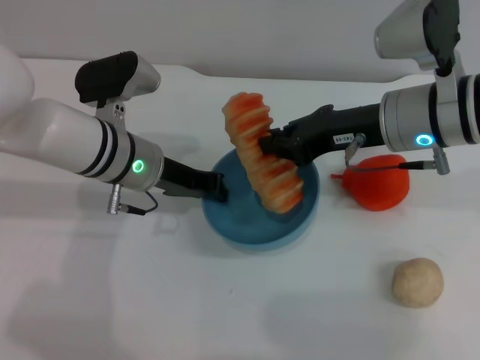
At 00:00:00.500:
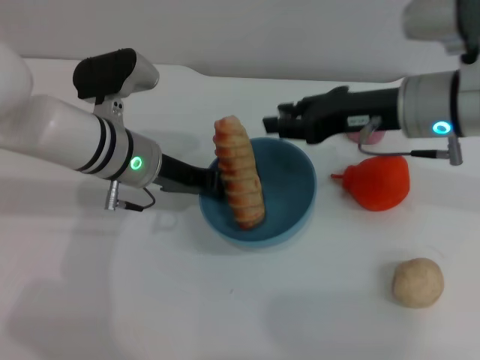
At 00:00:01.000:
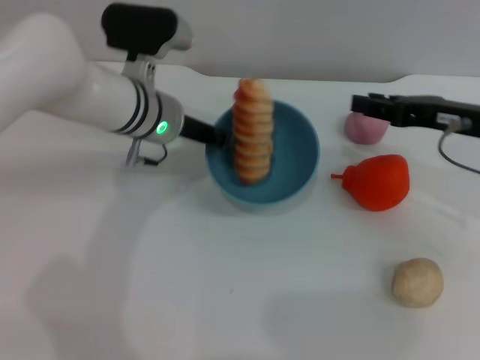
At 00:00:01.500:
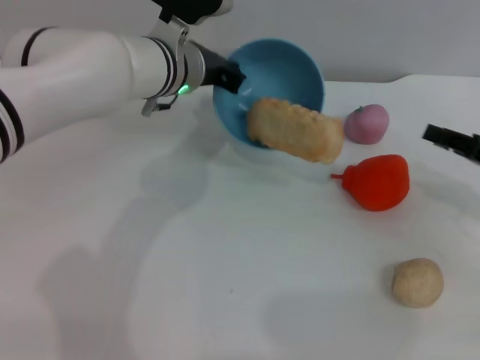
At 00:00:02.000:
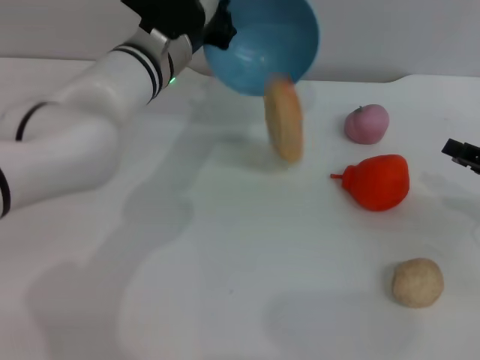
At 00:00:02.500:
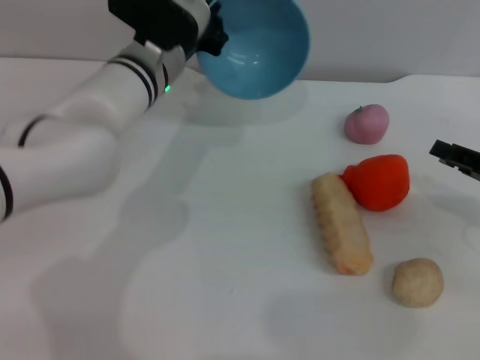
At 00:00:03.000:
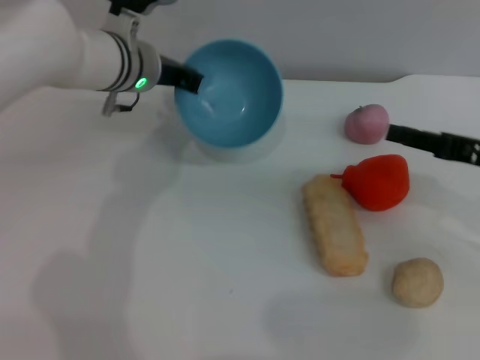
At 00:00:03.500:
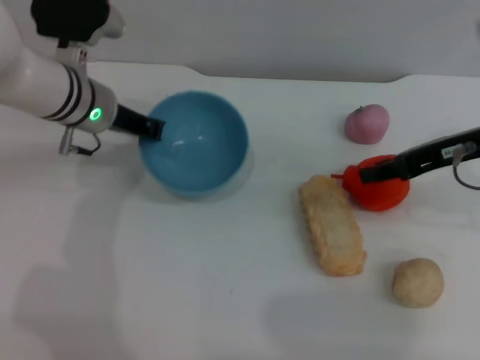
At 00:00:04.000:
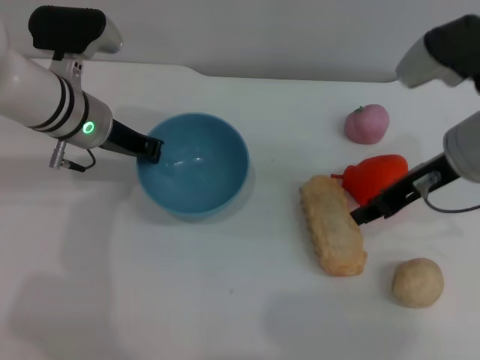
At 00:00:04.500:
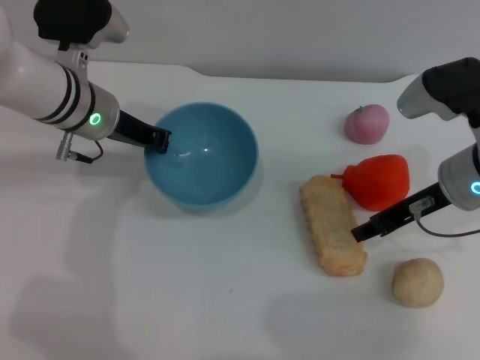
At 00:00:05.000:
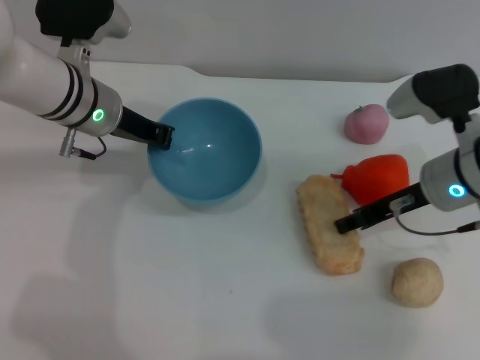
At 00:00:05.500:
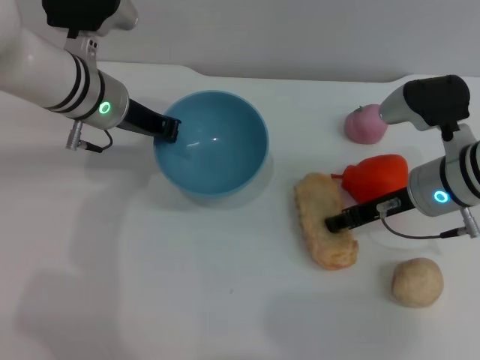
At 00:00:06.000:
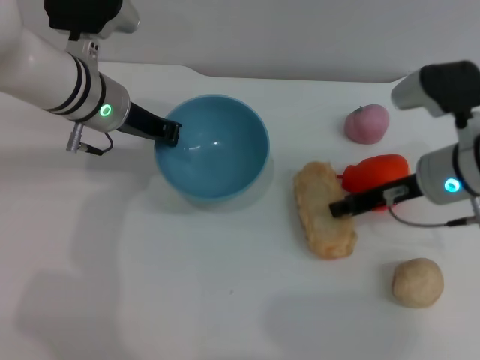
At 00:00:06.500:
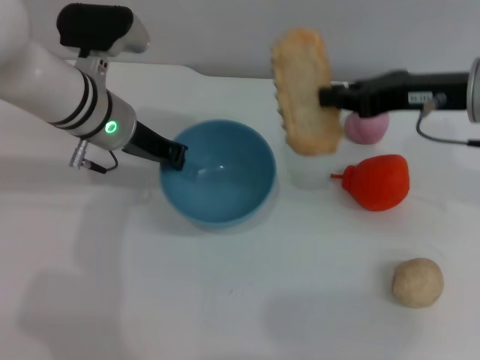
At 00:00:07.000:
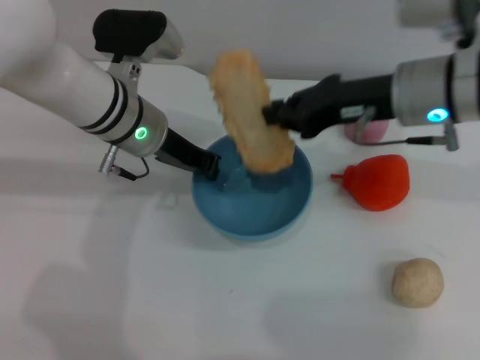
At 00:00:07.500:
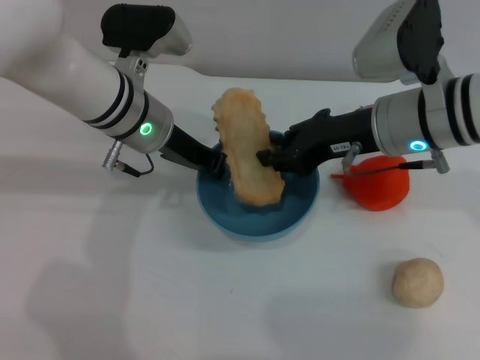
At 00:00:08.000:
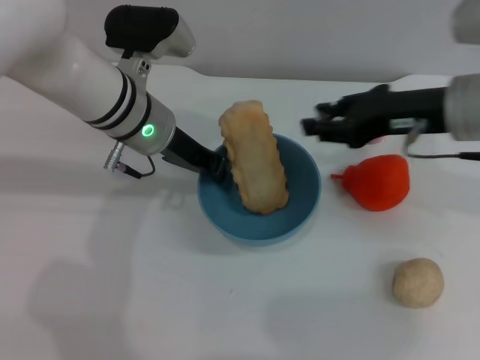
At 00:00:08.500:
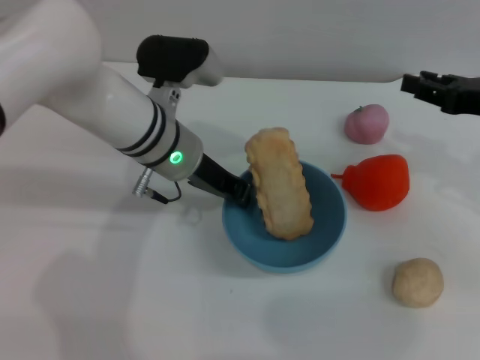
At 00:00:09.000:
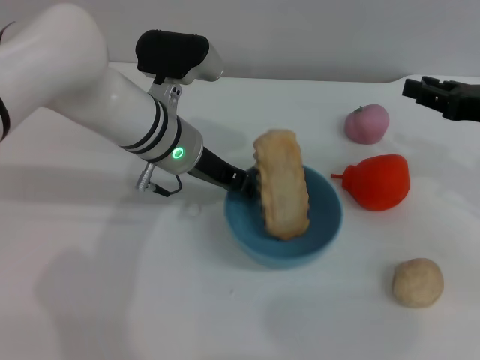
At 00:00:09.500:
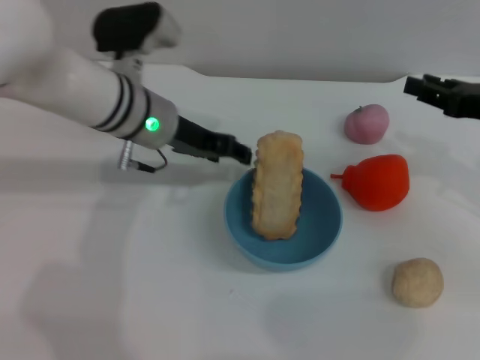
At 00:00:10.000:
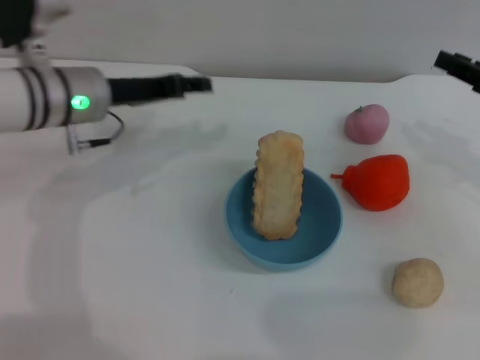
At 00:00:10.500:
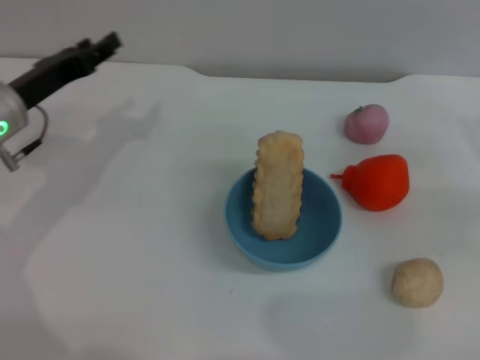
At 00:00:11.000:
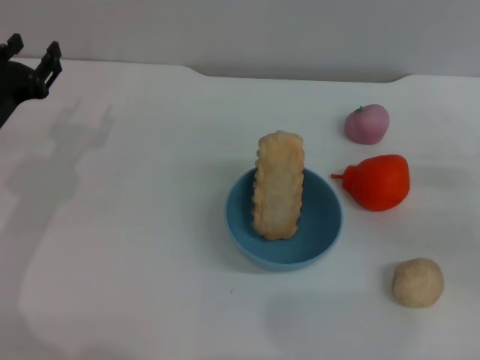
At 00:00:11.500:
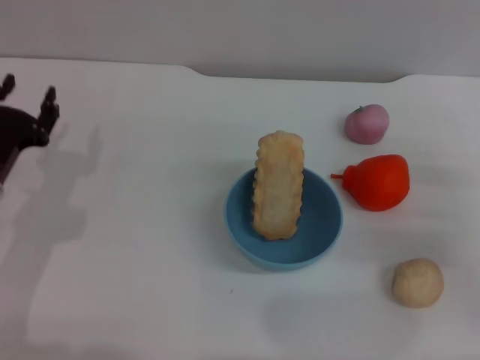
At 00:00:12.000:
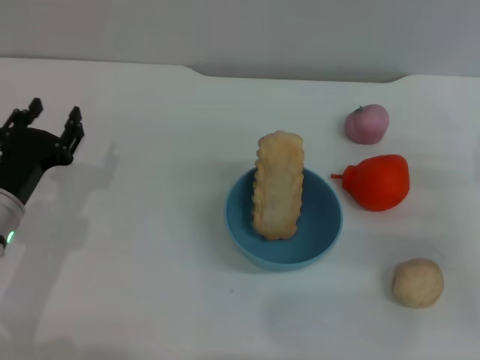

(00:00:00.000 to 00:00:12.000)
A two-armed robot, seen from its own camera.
Task of the whole recording: put the bread into the blue bowl and pour it out repeatedly.
Step, 00:00:00.500 - 00:00:02.500: Pour the bread out of the bowl.
Step, 00:00:03.000 - 00:00:06.000: Pick up the bread with the right gripper.
Step, 00:00:06.500 - 00:00:07.500: Place the bread into the bowl.
Step, 00:00:08.000 - 00:00:09.500: Place the bowl on the table.
00:00:00.000 - 00:00:02.000: The left gripper goes roughly 5 cm forward. The right gripper is displaced to the right by some 20 cm, and opens its fingers.
00:00:02.000 - 00:00:04.000: The left gripper shifts roughly 10 cm to the left, while the right gripper heads to the left, upward and forward, covering about 20 cm.
00:00:04.000 - 00:00:06.000: The right gripper heads downward, covering approximately 5 cm.
00:00:06.000 - 00:00:08.000: The right gripper travels upward by about 10 cm.
00:00:08.000 - 00:00:10.000: The left gripper goes about 5 cm to the left, and opens up, while the right gripper heads to the right, covering about 10 cm.
00:00:10.000 - 00:00:12.000: The left gripper goes roughly 15 cm backward, downward and to the left. Meanwhile the right gripper travels downward and backward by about 10 cm.
